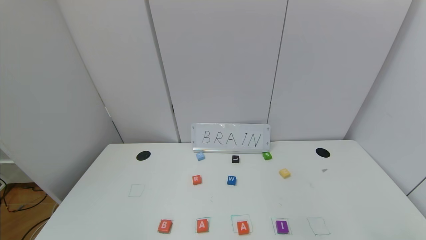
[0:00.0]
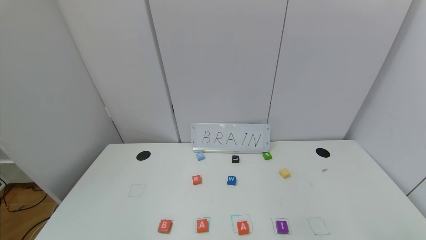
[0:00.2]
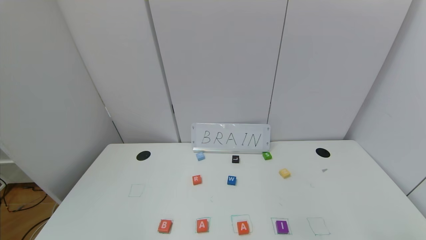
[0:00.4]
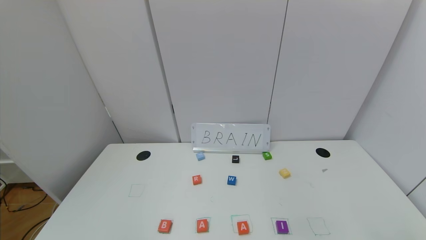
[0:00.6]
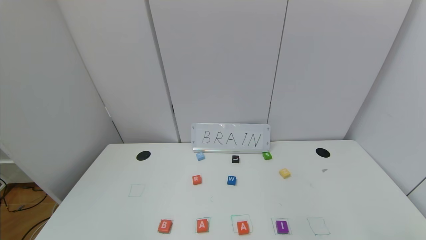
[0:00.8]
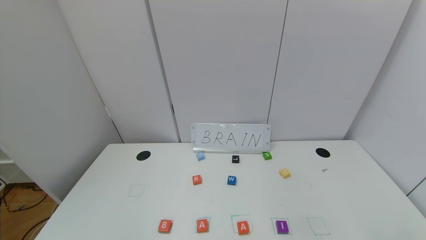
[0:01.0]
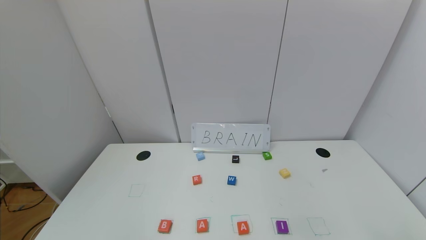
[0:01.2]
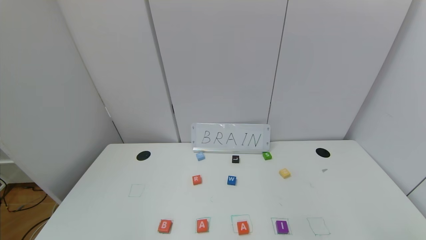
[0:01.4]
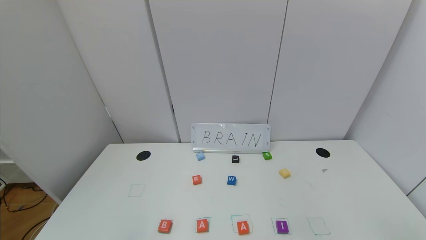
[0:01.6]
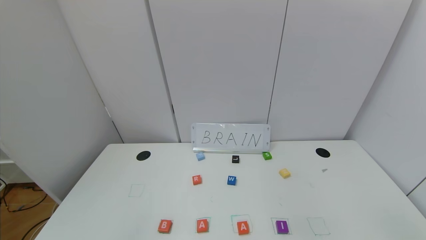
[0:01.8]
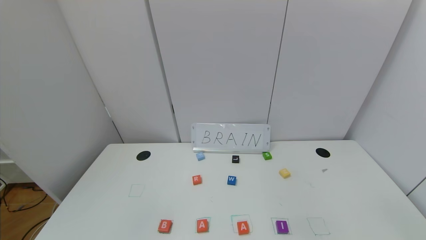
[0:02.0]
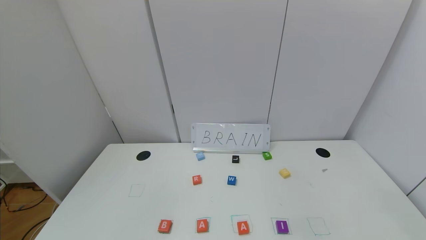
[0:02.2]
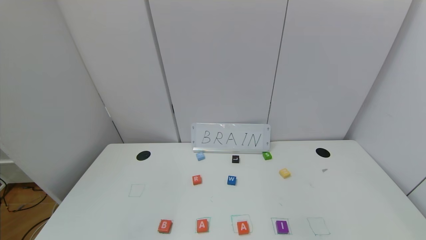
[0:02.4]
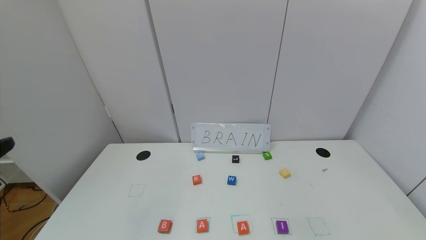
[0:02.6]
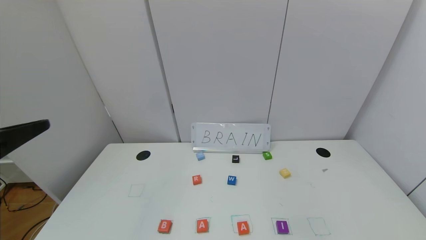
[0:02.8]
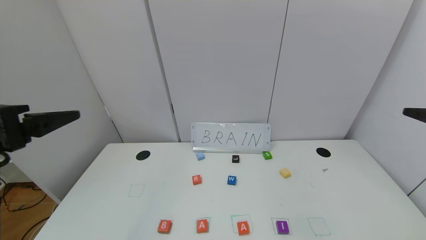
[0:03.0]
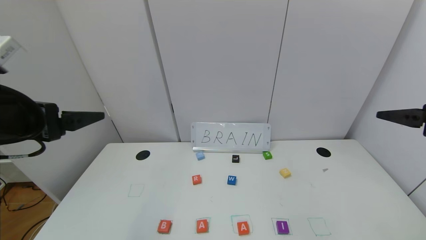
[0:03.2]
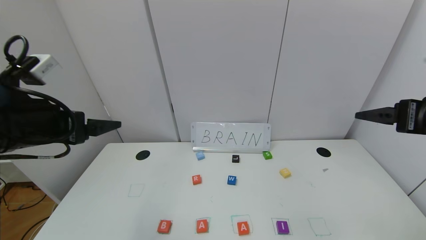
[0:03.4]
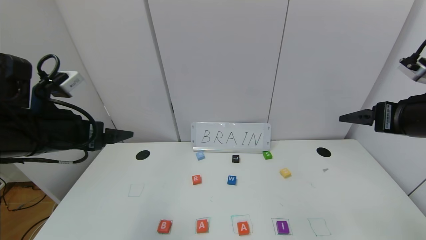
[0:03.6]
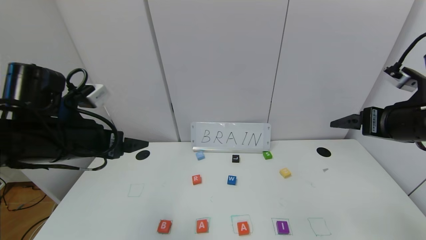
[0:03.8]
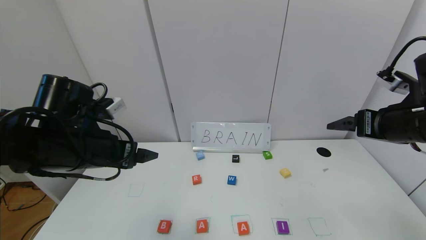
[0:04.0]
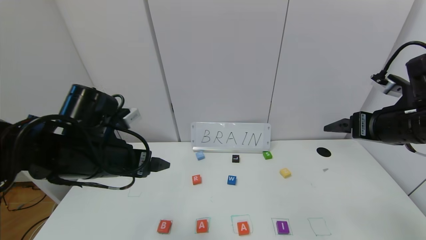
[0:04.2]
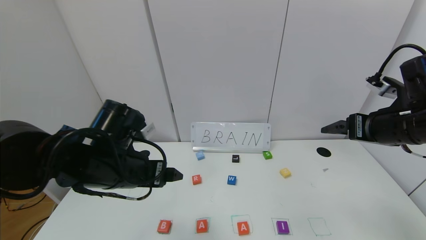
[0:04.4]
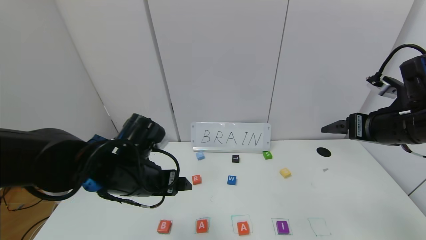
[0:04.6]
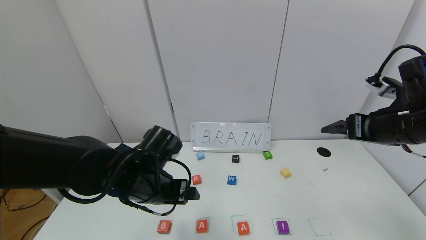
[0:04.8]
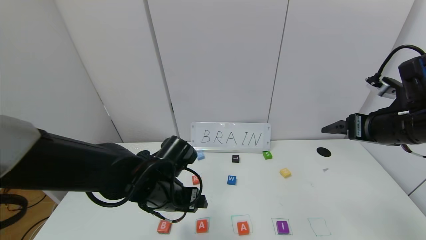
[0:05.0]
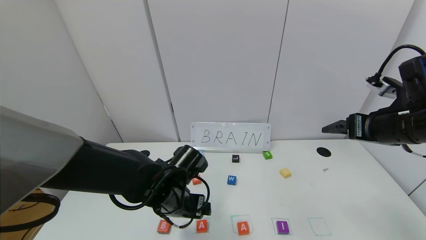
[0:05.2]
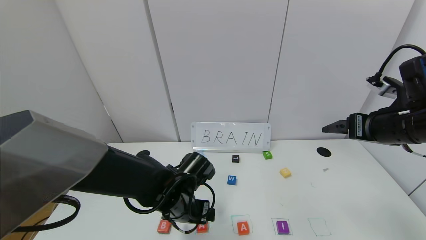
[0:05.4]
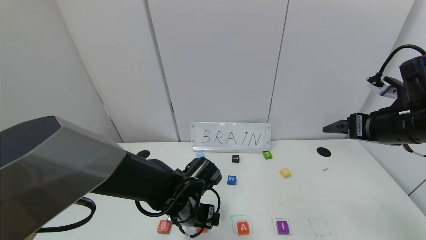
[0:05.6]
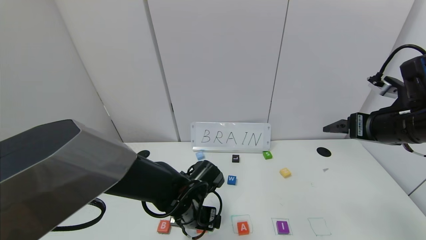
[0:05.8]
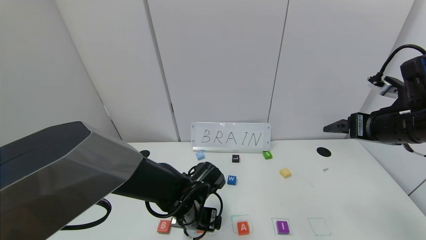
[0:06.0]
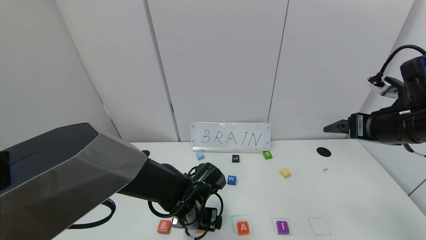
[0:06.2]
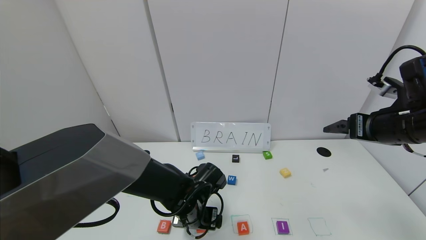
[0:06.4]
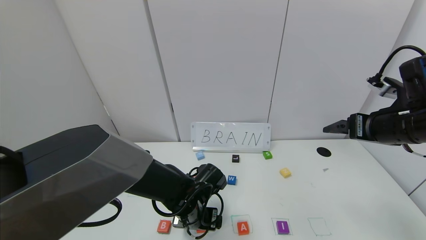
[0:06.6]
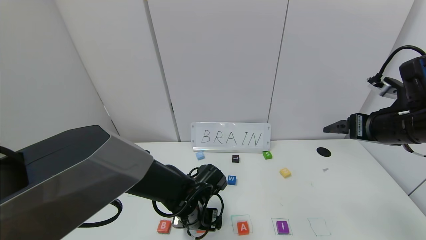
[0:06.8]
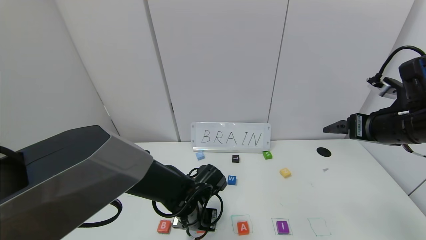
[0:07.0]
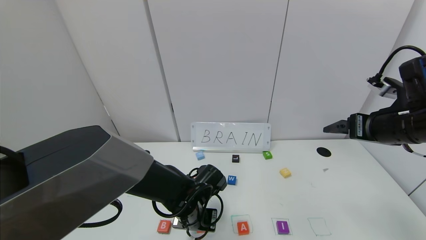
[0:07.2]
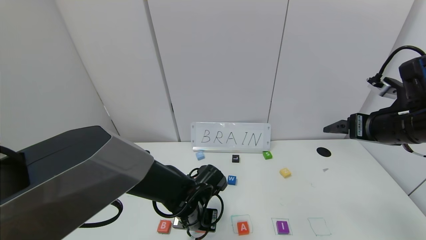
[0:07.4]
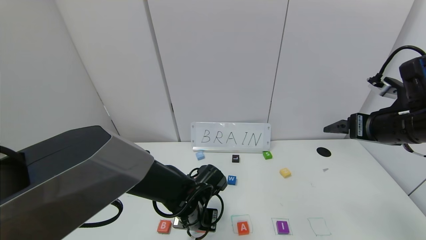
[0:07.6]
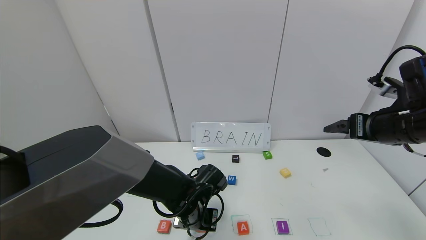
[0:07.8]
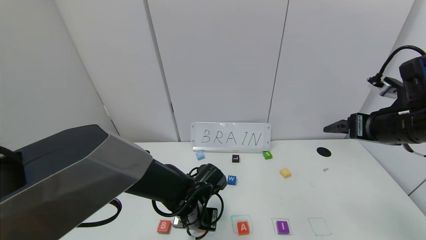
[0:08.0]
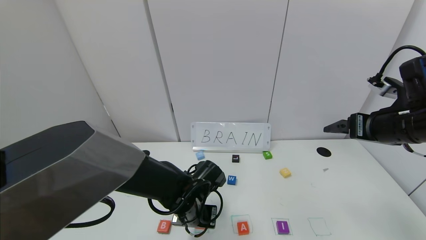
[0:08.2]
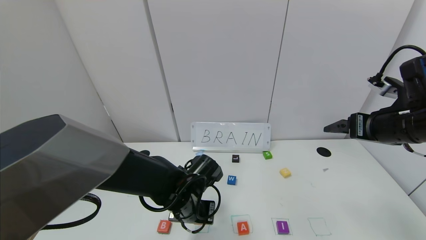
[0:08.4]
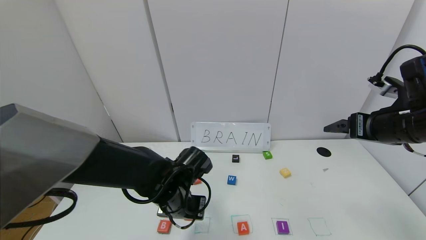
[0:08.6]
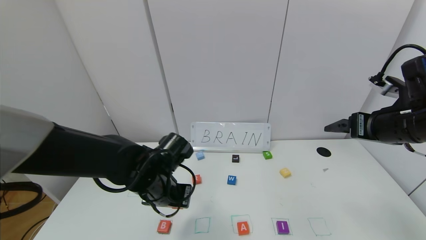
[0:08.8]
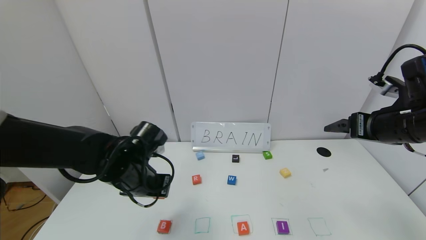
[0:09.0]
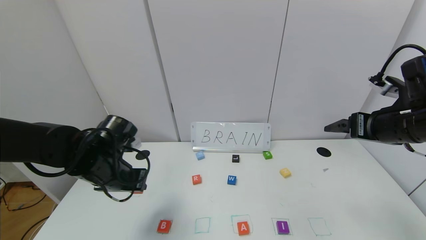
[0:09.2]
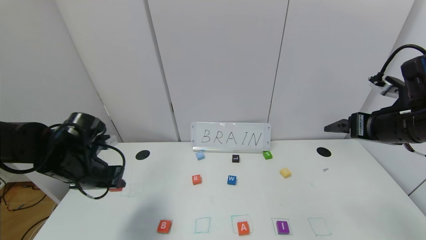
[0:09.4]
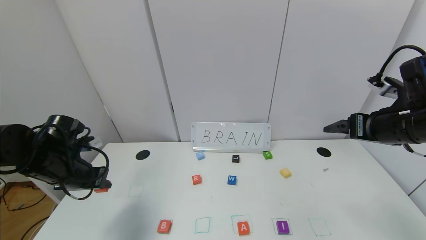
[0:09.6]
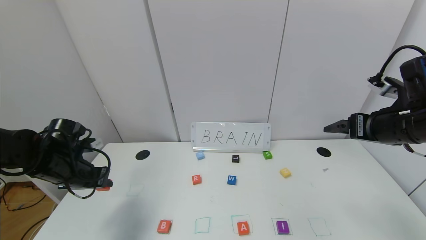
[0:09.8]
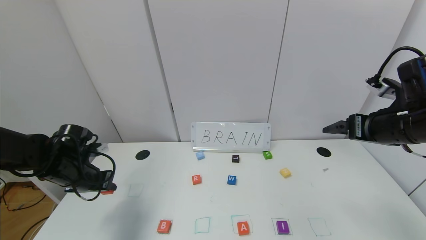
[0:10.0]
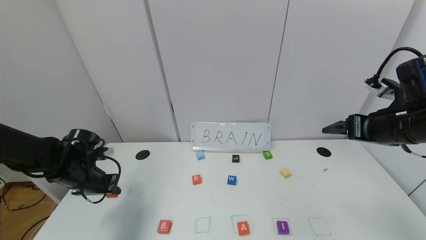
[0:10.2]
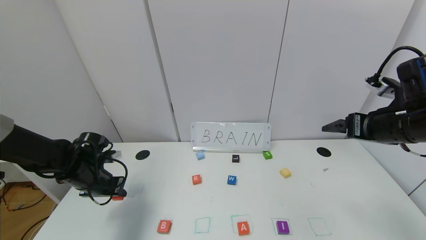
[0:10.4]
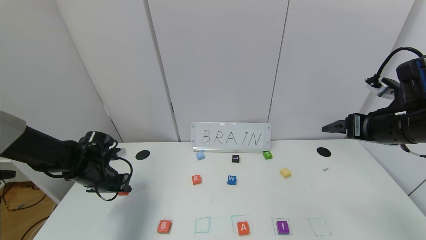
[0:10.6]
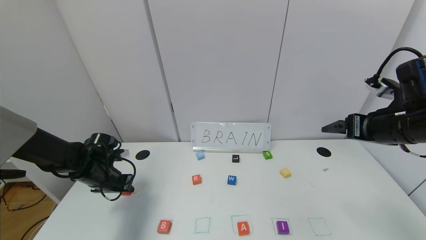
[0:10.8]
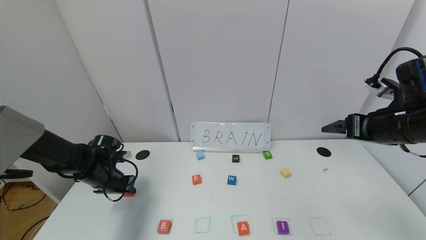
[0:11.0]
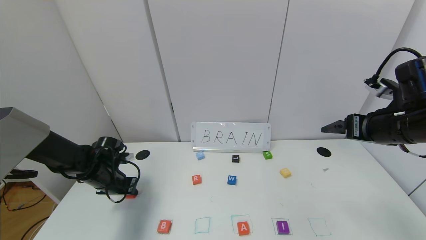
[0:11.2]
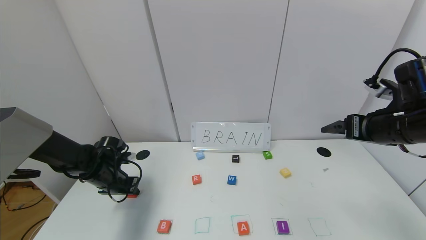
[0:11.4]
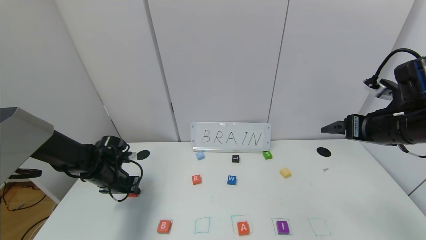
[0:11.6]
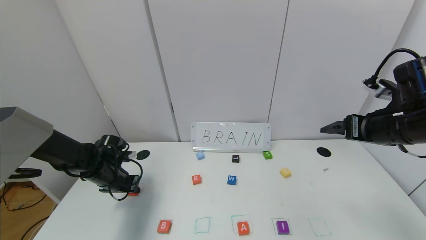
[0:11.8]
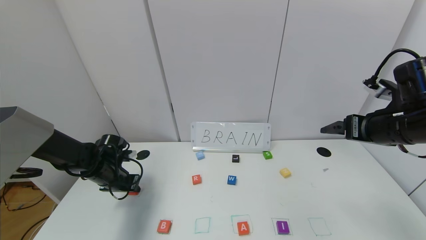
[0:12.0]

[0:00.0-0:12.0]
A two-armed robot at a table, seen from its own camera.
Task of the whole recording: use the gripper to find blocks with the letters b, a, a, and i on the table and arrange them into BAAI, then find r and N and turn the arranged baai into brian.
0:01.6 to 0:03.0: The left gripper moves forward and upward, approximately 25 cm.
0:03.0 to 0:04.4: The left gripper shifts some 20 cm downward, to the right and forward; the right gripper shifts roughly 10 cm forward.
0:04.4 to 0:06.0: The left gripper shifts approximately 15 cm downward and to the right.
0:06.0 to 0:07.6: The left gripper closes up.
0:07.6 to 0:09.0: The left gripper travels to the left and upward by some 15 cm.
0:09.0 to 0:10.4: The left gripper travels to the left and downward by some 15 cm.
0:10.4 to 0:12.0: The grippers make only small movements.

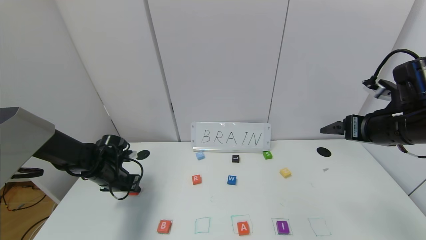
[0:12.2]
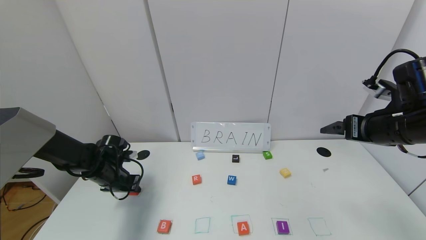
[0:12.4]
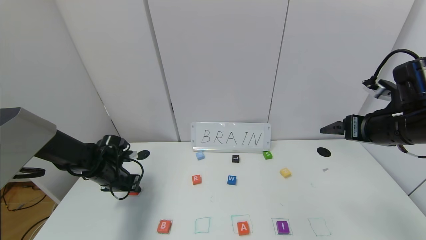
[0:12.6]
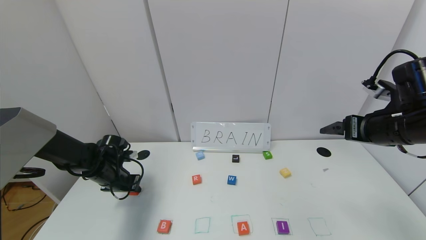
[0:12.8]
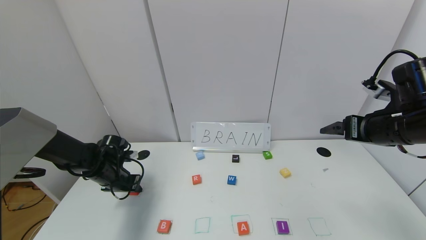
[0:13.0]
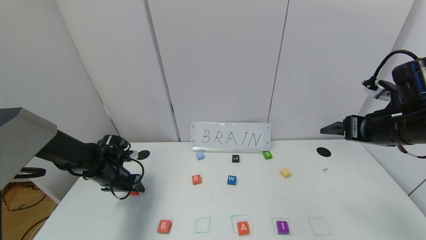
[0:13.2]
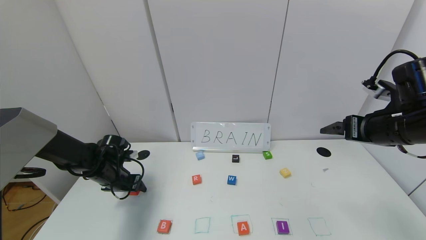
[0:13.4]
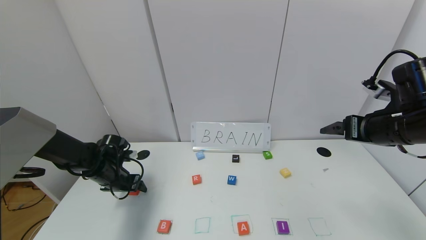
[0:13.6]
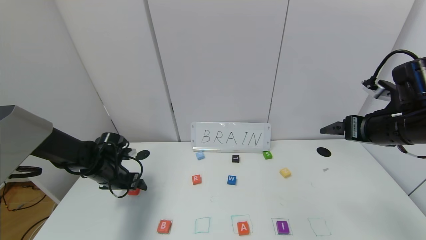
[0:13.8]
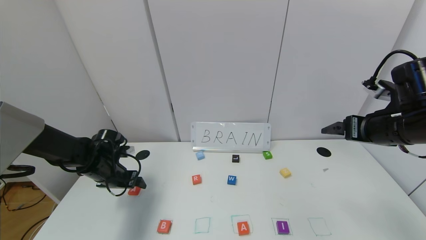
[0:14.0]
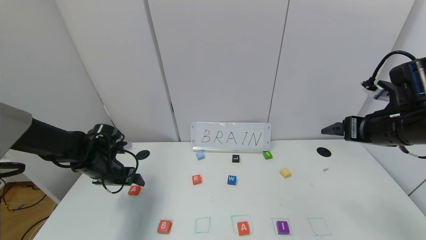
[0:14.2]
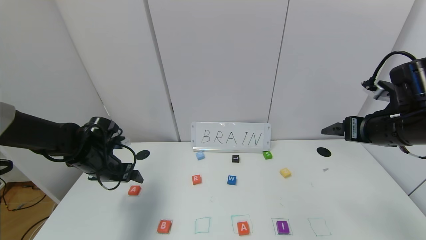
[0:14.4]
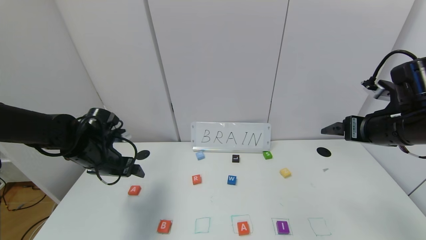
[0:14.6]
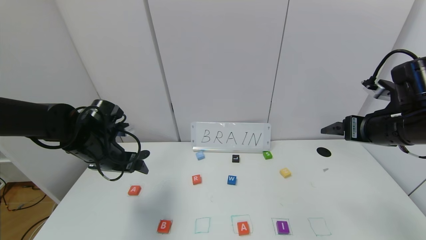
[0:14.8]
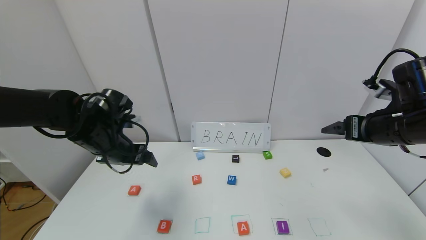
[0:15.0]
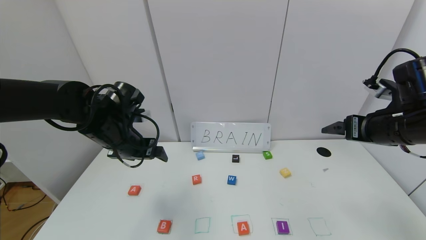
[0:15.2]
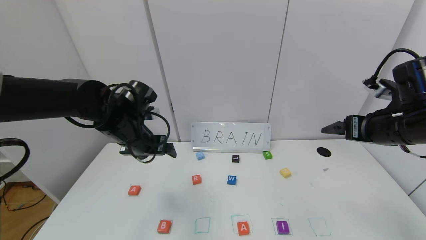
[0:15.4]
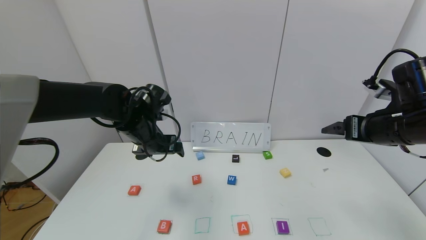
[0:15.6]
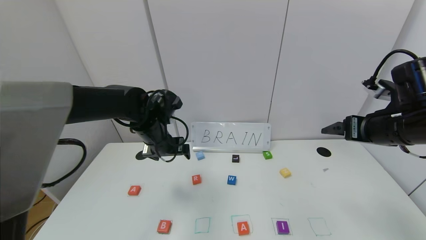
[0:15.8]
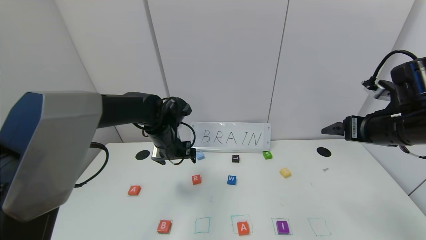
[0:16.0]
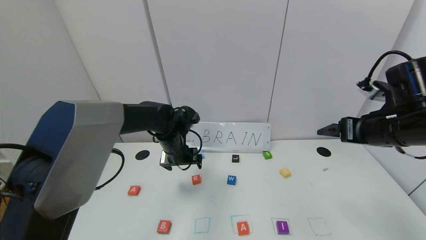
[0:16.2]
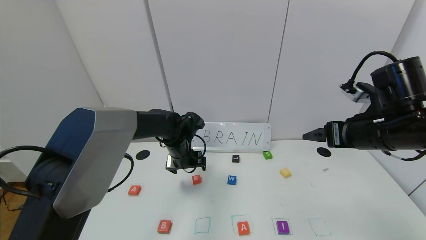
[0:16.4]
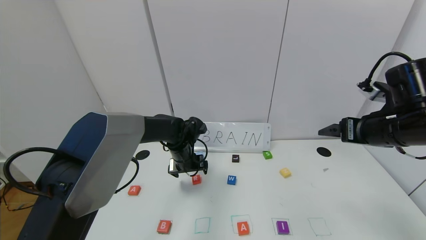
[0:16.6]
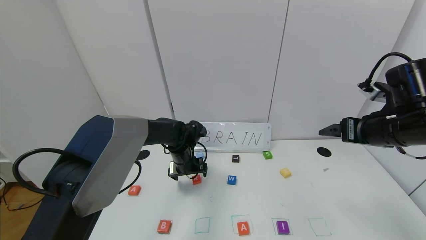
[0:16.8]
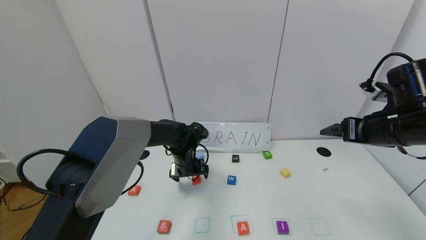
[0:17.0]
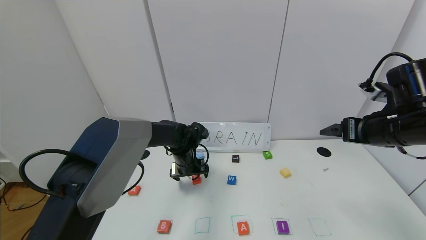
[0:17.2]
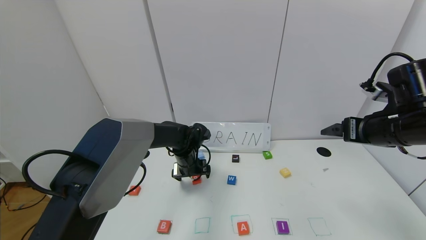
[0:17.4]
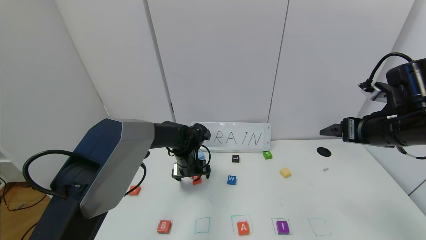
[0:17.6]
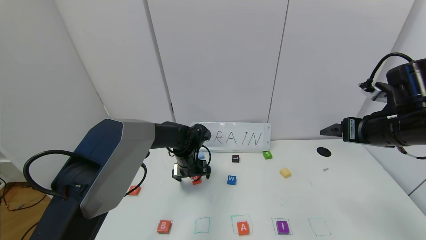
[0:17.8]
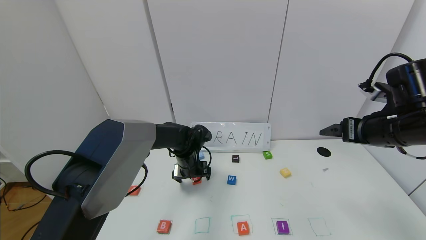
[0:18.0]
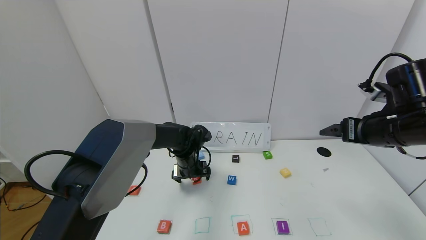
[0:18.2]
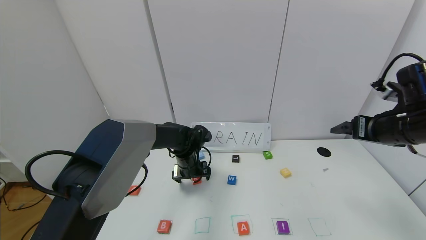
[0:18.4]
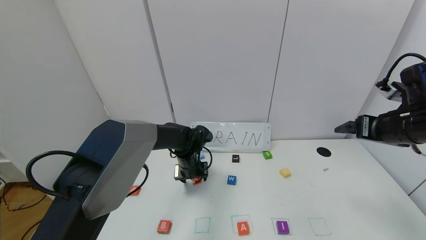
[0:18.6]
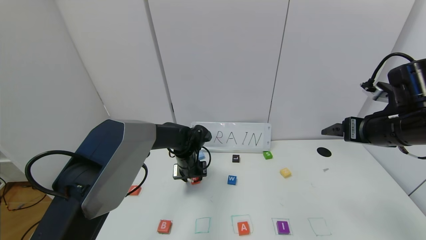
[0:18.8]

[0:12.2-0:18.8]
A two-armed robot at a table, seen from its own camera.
Task of the whole recording: use the gripper to find blocks with the letters b, a, a, and i on the table and arrange them into BAAI, then find r and N and turn the arranged baai into brian.
0:12.2 to 0:13.8: The left gripper opens its fingers.
0:13.8 to 0:15.4: The left gripper is displaced upward and to the right by some 20 cm.
0:15.4 to 0:17.2: The left gripper shifts roughly 15 cm downward, to the right and forward.
0:17.2 to 0:18.8: The left gripper closes up.
